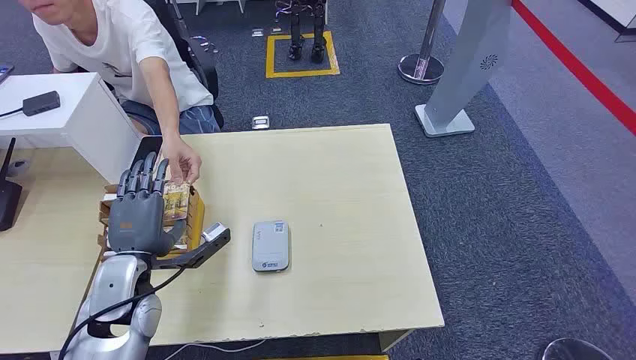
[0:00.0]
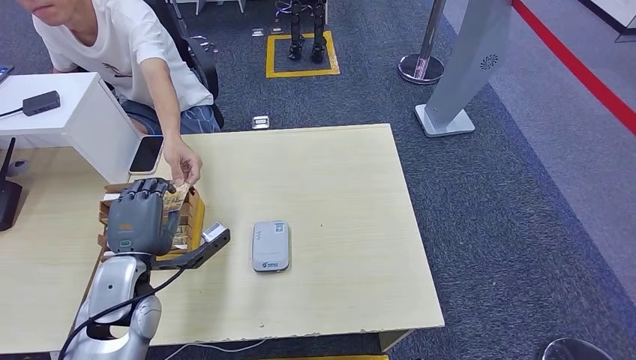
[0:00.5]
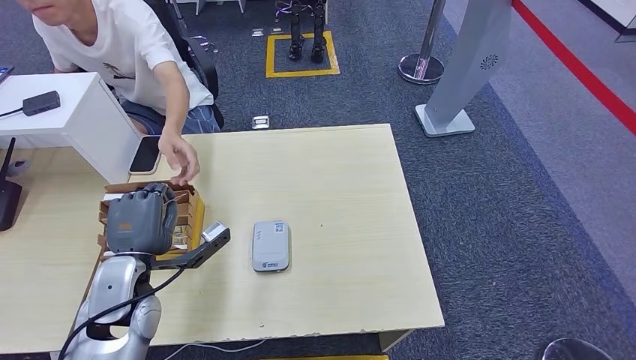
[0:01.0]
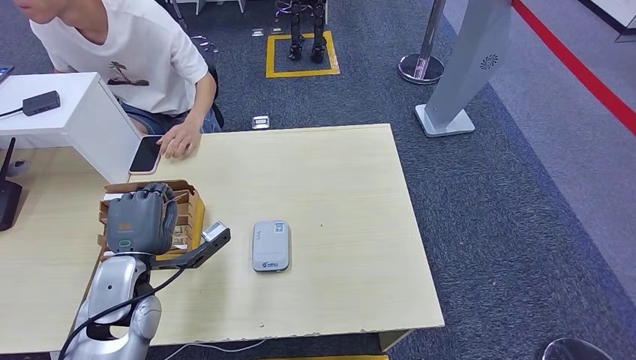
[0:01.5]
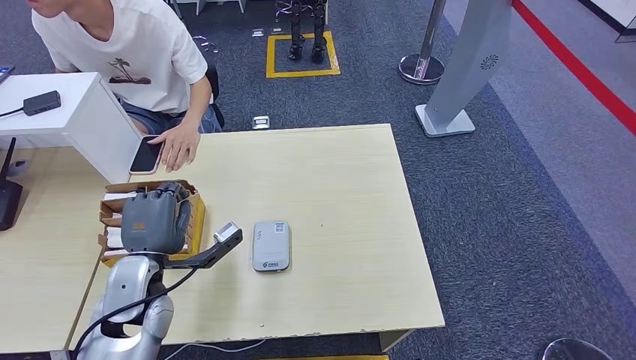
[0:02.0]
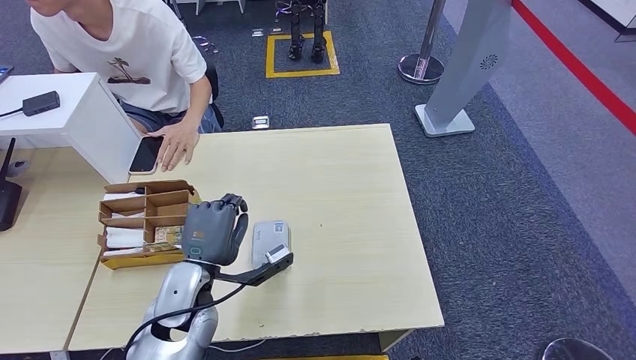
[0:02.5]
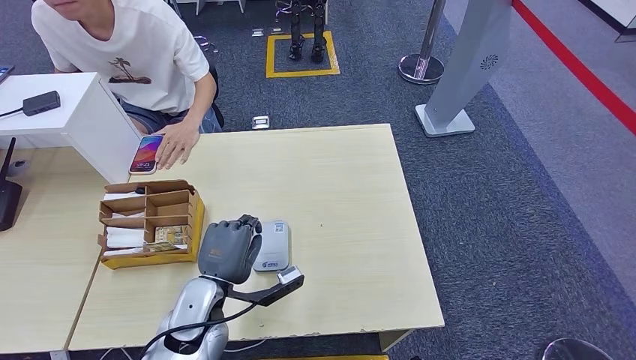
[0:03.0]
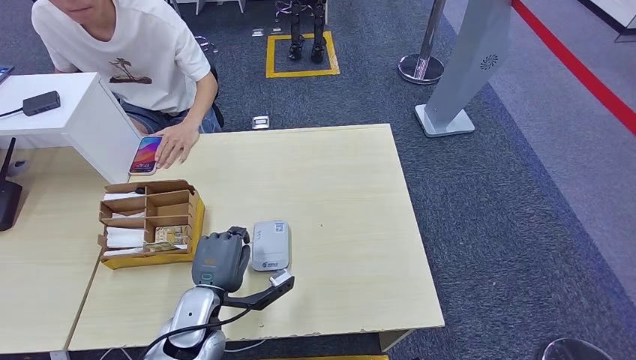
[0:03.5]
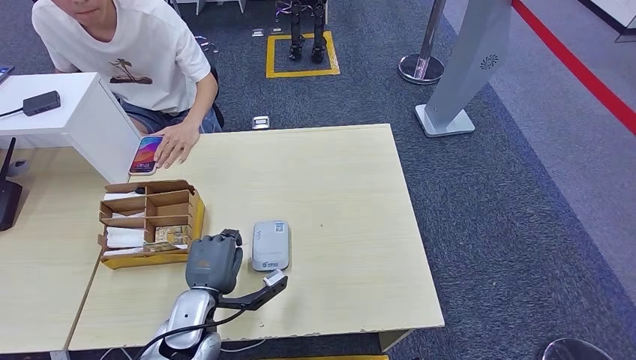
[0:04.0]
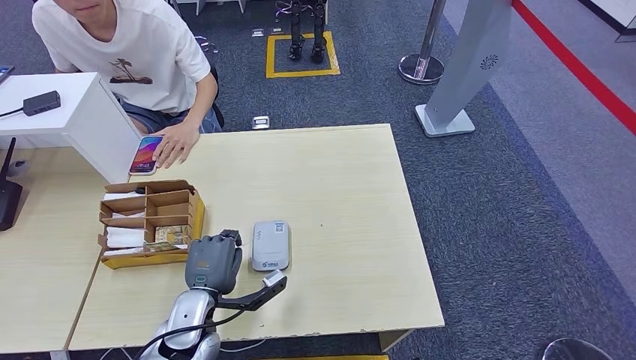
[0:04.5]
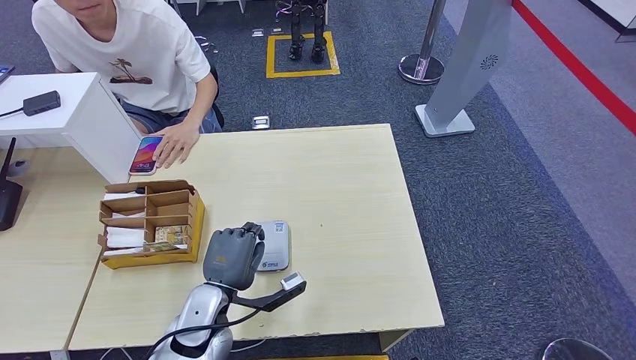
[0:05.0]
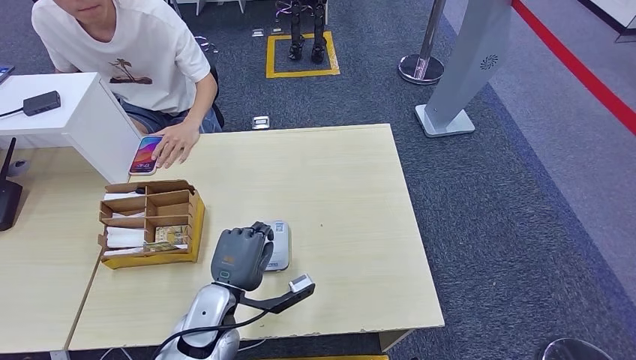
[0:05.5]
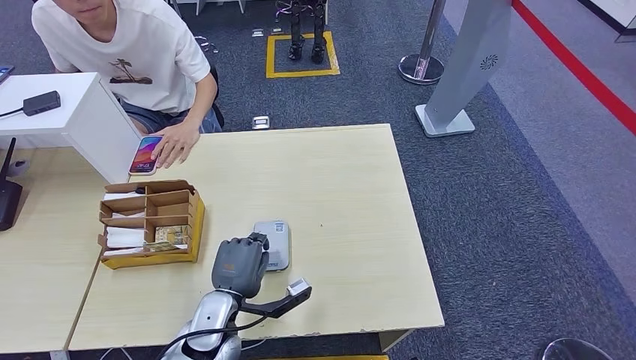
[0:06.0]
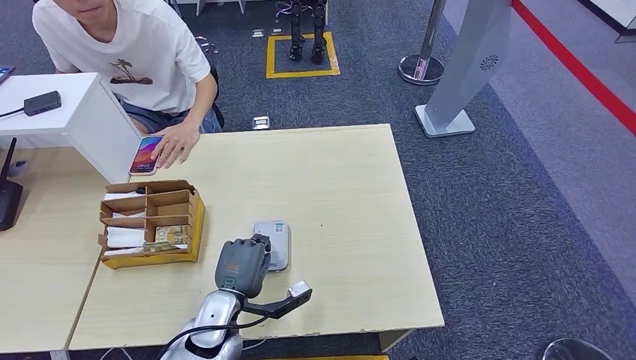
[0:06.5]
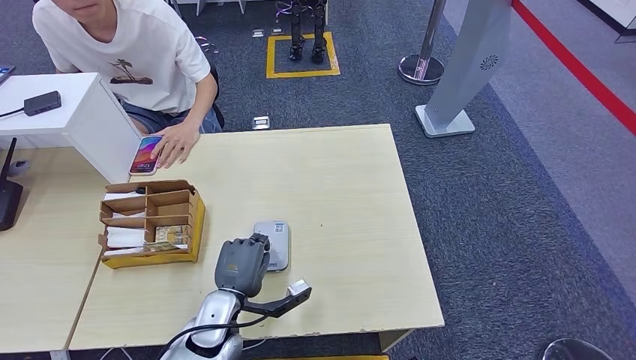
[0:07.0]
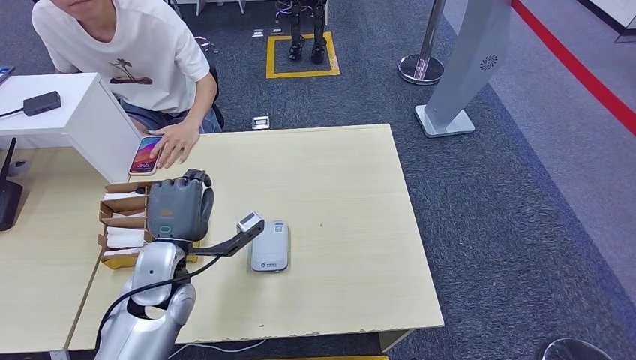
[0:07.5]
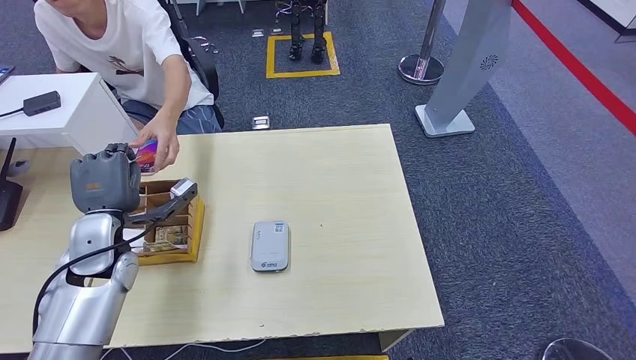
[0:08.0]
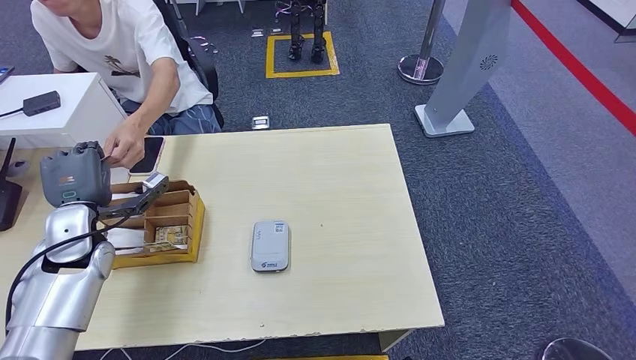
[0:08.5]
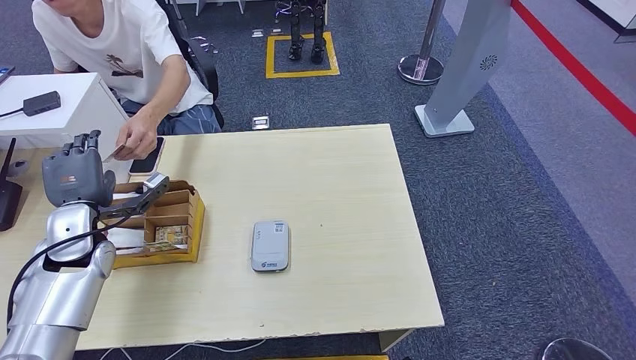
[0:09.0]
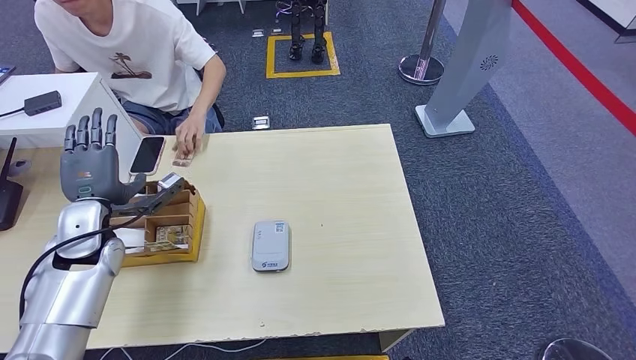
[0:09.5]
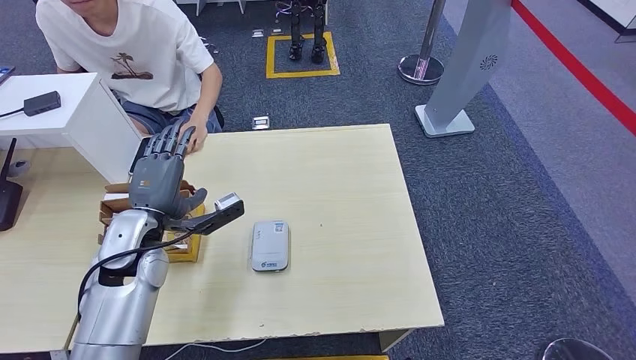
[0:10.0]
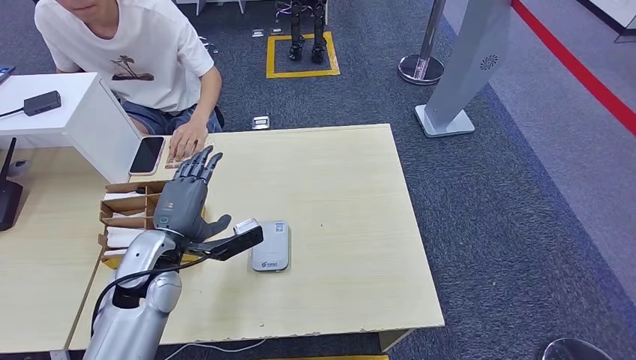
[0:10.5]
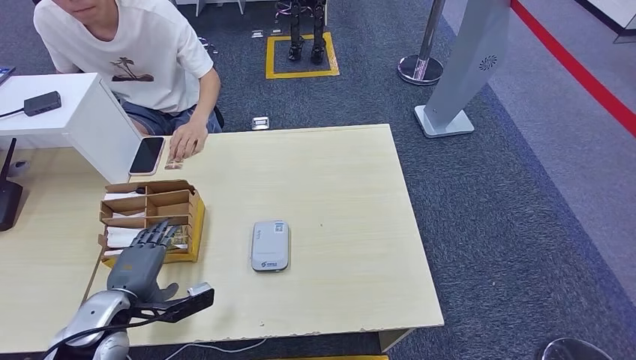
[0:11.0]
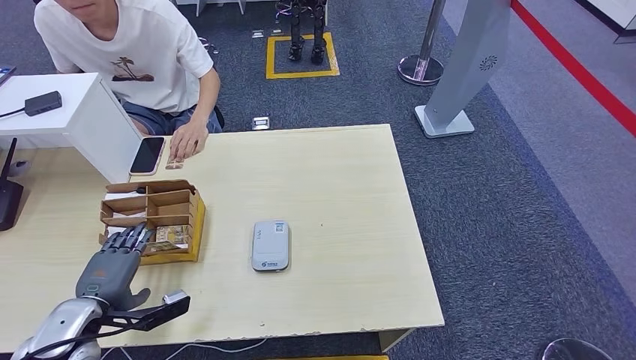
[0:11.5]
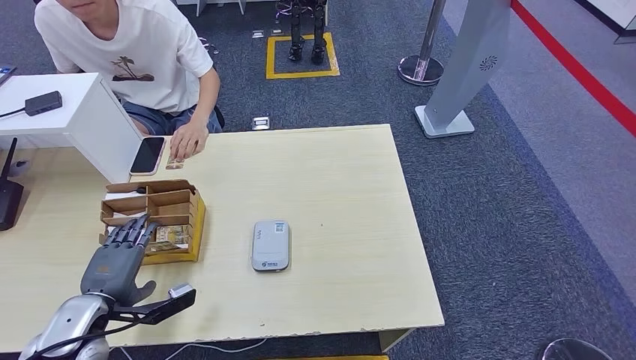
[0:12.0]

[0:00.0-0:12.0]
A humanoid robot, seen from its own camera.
Step, 0:00.0 to 0:01.0: Take the ID card from the person's hand.
Step, 0:01.5 to 0:06.5: Place the ID card on the card reader.
Step, 0:07.0 to 0:09.5: Hand the ID card to the person.
0:02.0 to 0:04.0: The left hand goes about 10 cm downward and to the right.
0:04.0 to 0:06.0: There are only small adjustments of the hands.
0:06.0 to 0:08.0: The left hand travels to the left, upward and forward by approximately 20 cm.
0:08.0 to 0:10.0: The left hand travels to the right by about 5 cm.
0:10.0 to 0:12.0: The left hand shifts some 15 cm backward, to the left and downward.

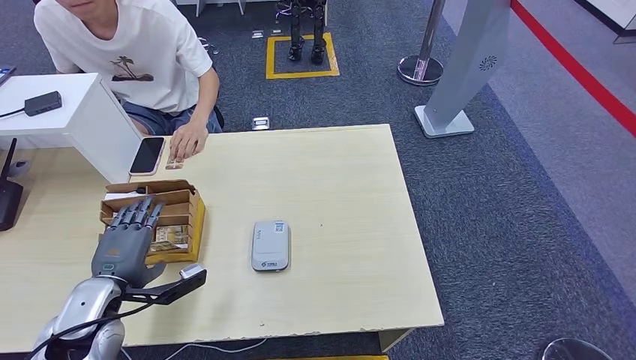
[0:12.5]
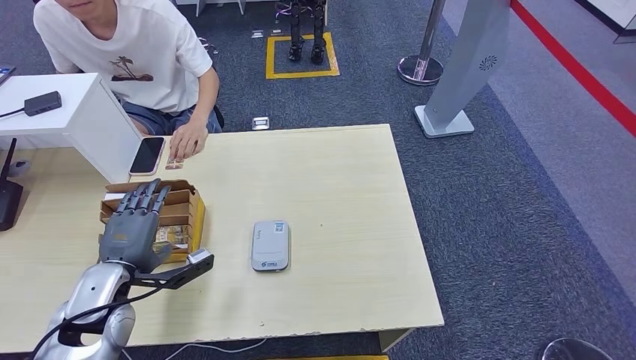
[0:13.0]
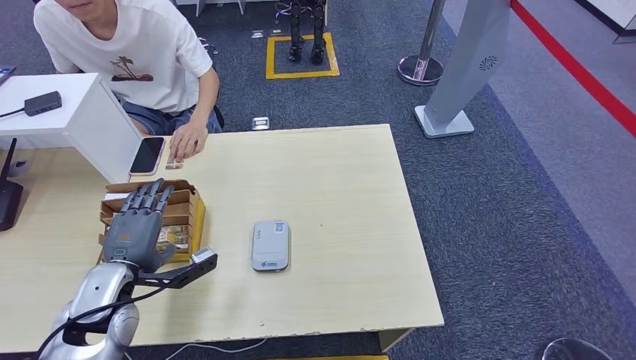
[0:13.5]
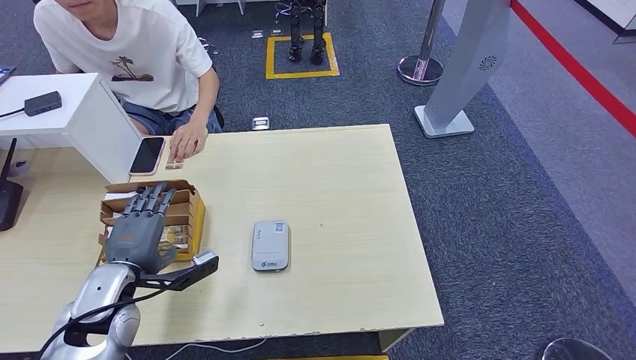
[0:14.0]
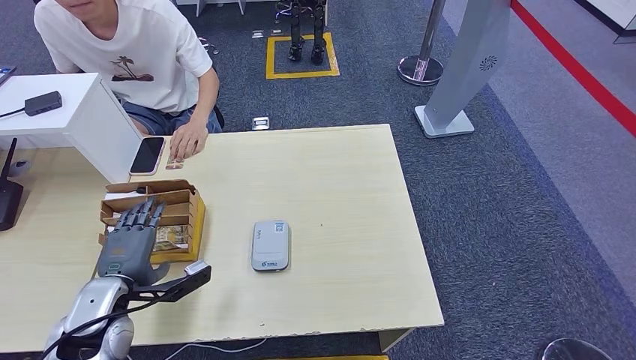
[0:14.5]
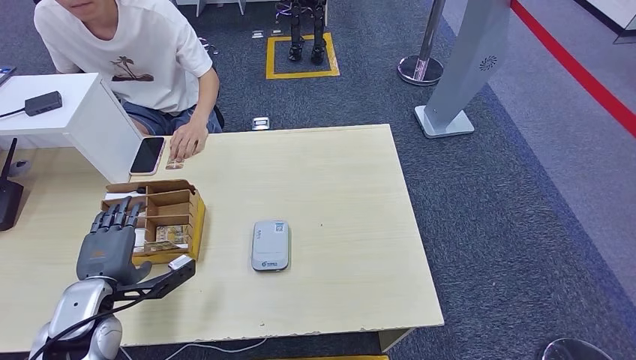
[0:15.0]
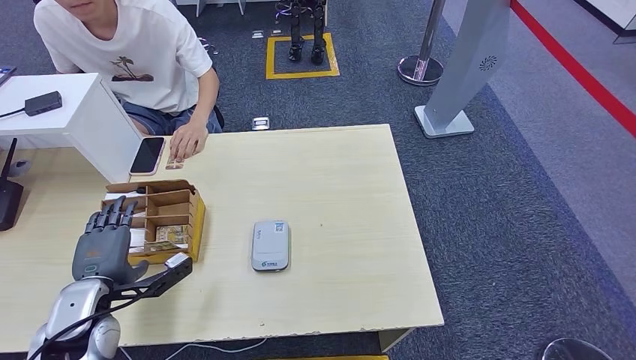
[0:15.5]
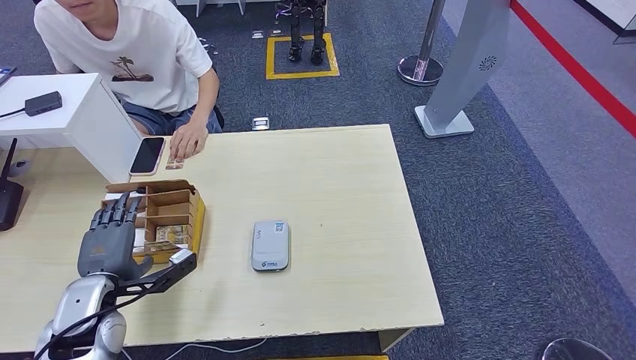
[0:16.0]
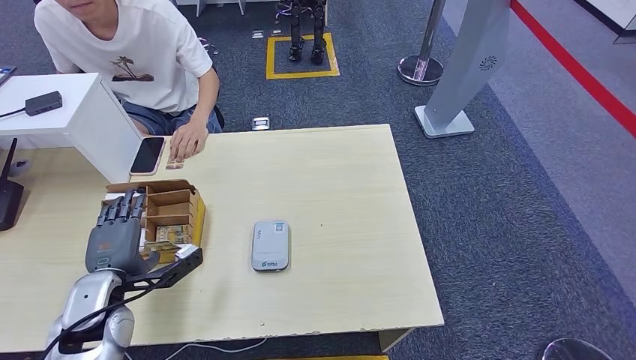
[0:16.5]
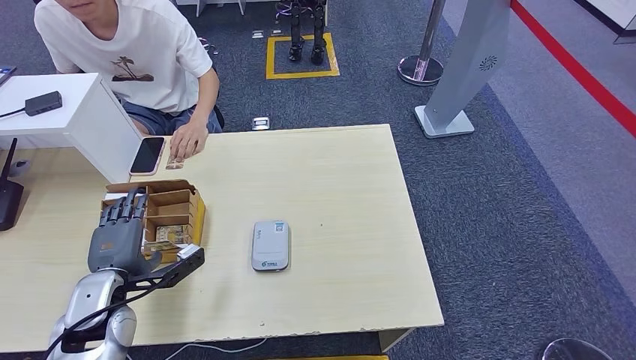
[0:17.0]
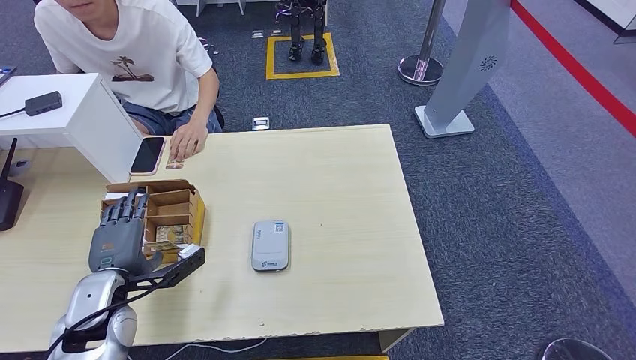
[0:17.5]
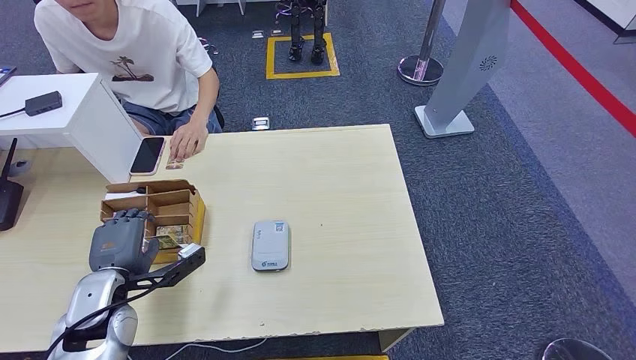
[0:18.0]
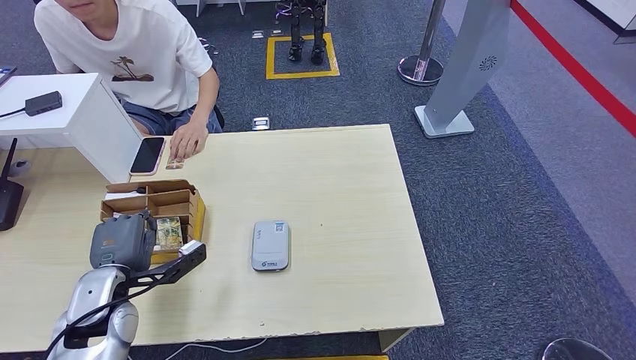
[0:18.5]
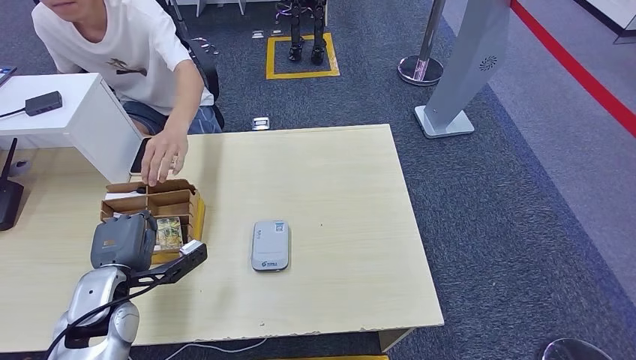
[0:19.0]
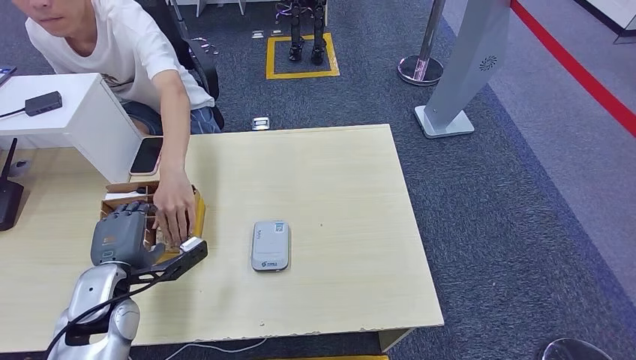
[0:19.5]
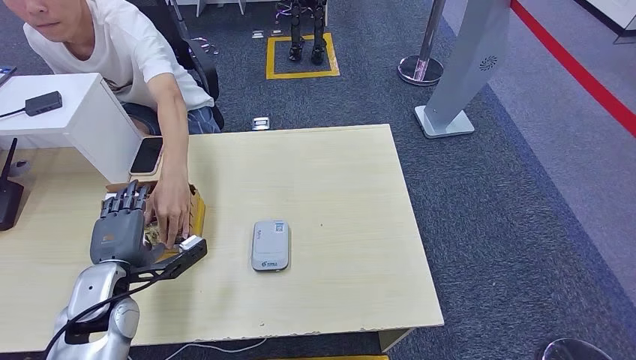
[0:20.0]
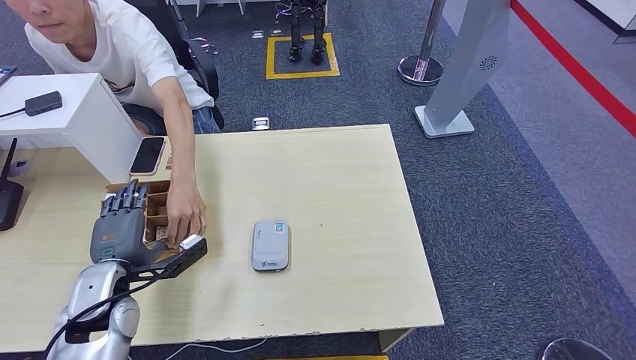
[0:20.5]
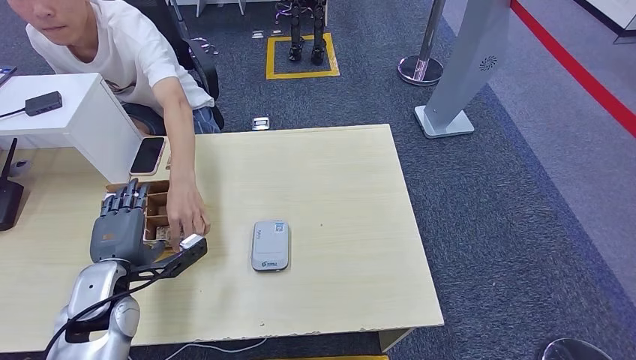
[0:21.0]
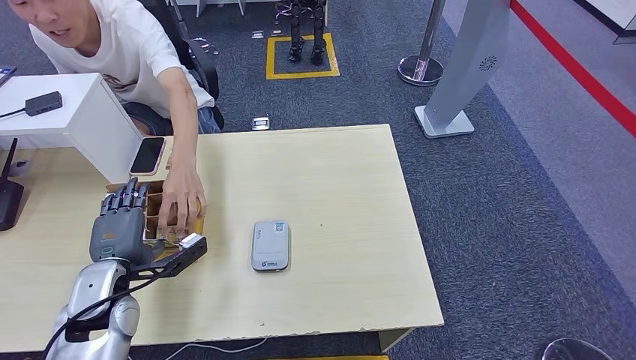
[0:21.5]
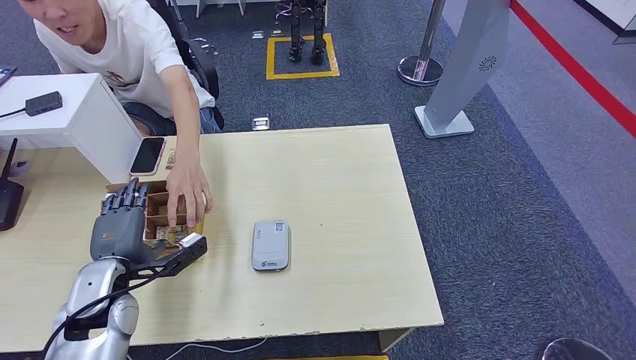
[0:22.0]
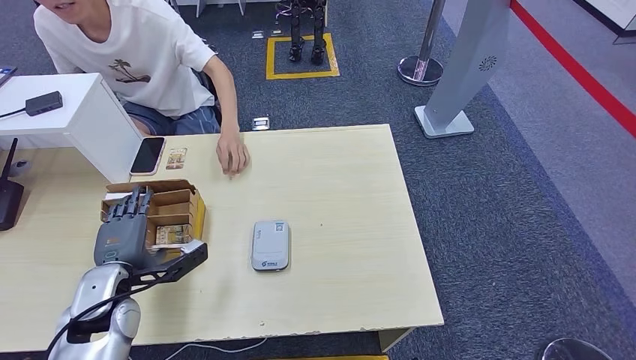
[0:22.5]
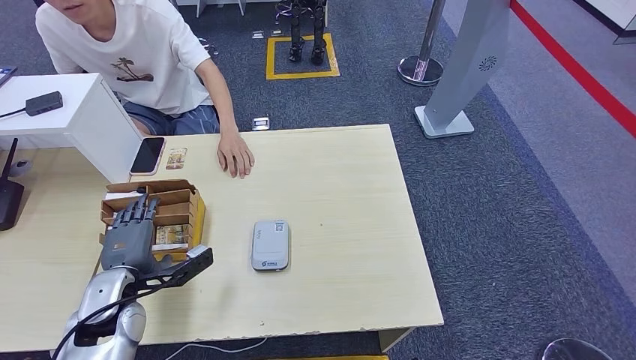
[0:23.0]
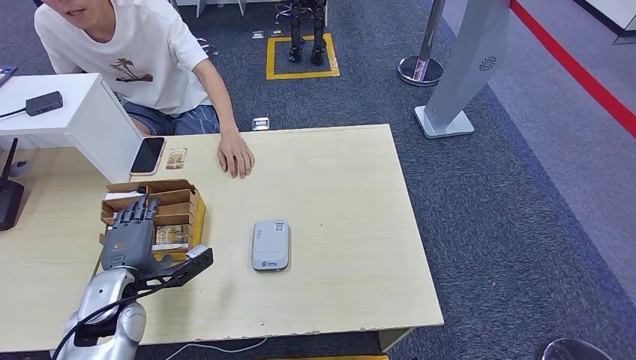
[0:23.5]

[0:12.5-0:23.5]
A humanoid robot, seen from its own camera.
0:12.5 to 0:18.0: The hands move only a little.
0:18.0 to 0:20.0: Neither hand changes place.
0:20.0 to 0:21.5: Neither hand changes place.
0:21.5 to 0:23.5: The hands stay close to where they were, moving slightly.
